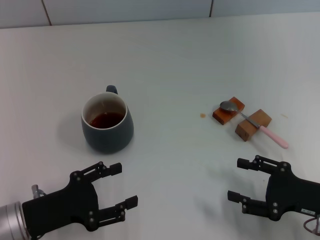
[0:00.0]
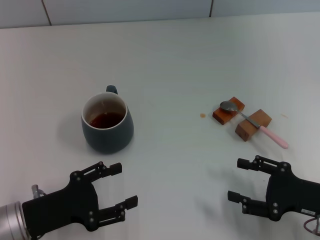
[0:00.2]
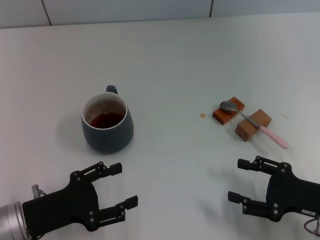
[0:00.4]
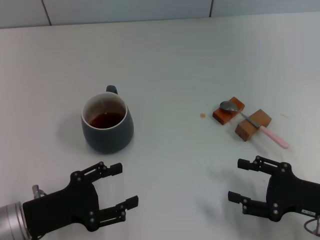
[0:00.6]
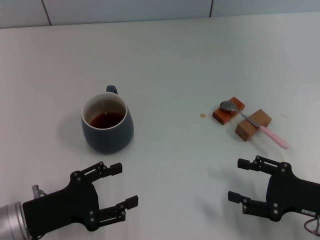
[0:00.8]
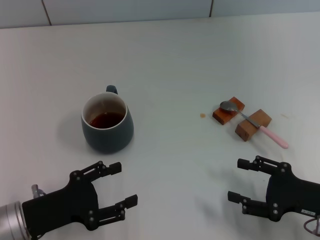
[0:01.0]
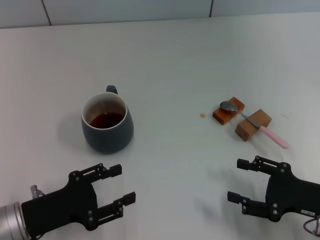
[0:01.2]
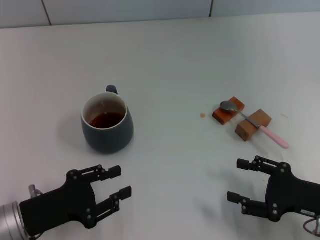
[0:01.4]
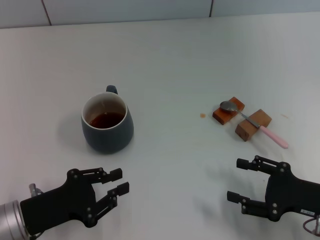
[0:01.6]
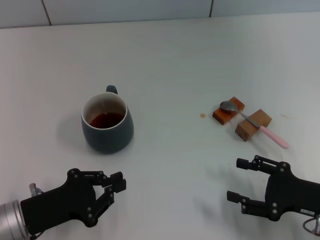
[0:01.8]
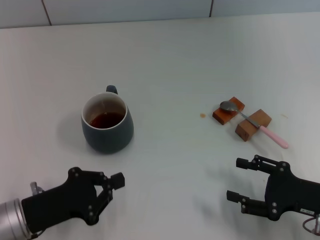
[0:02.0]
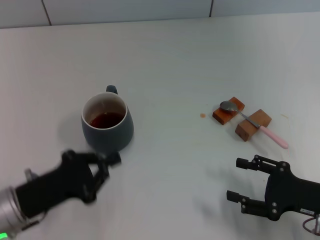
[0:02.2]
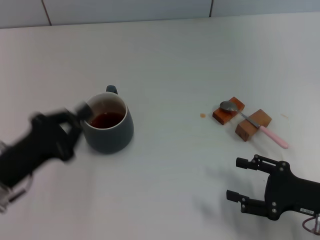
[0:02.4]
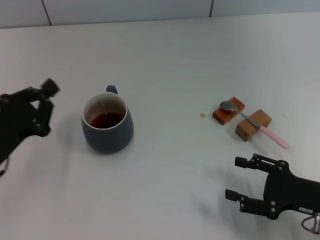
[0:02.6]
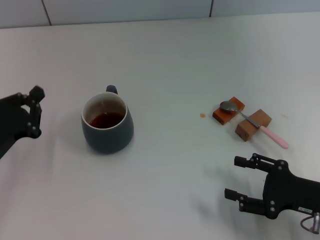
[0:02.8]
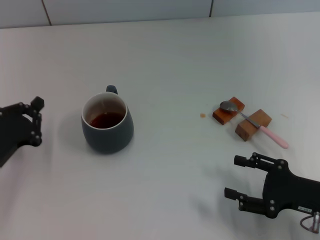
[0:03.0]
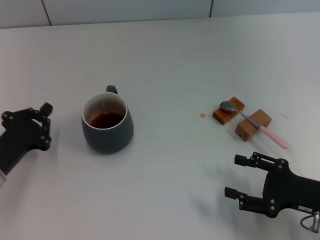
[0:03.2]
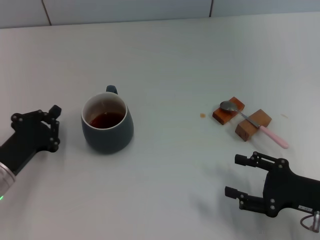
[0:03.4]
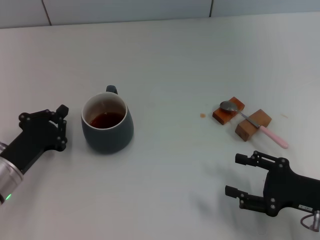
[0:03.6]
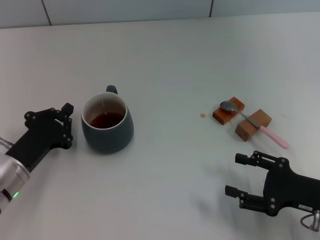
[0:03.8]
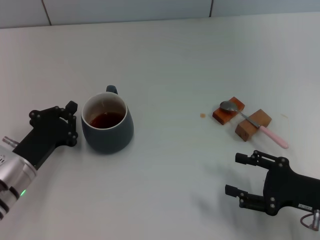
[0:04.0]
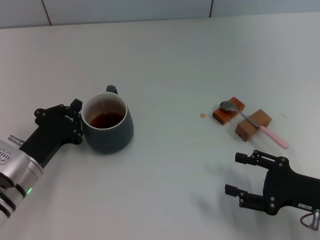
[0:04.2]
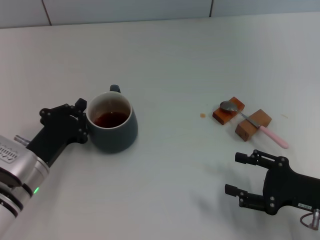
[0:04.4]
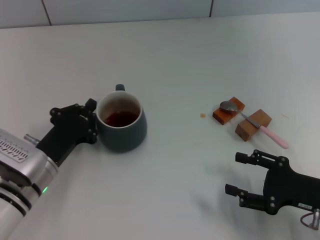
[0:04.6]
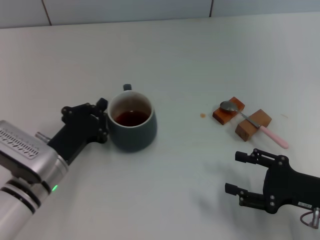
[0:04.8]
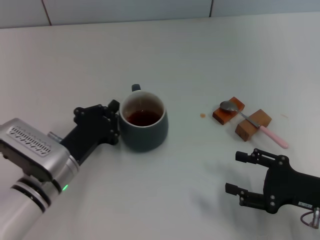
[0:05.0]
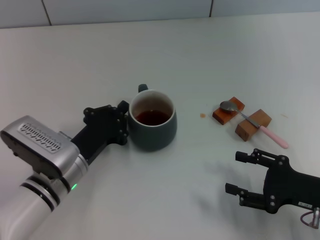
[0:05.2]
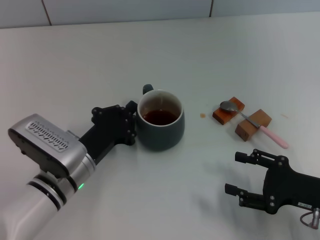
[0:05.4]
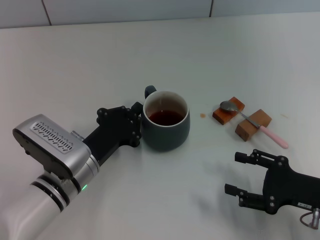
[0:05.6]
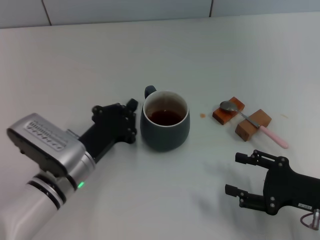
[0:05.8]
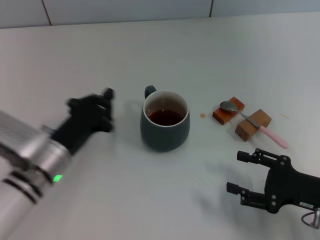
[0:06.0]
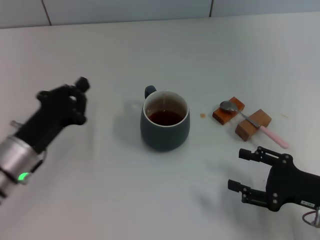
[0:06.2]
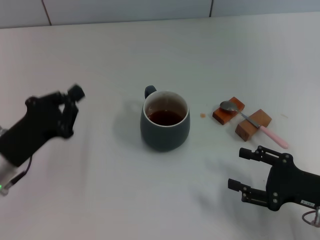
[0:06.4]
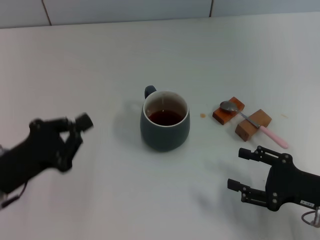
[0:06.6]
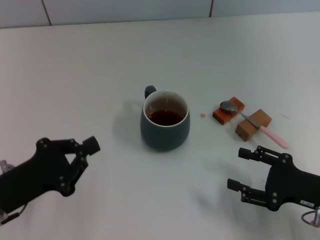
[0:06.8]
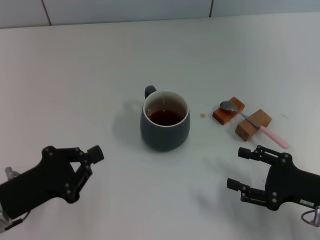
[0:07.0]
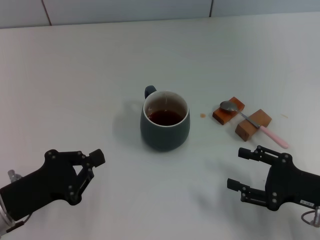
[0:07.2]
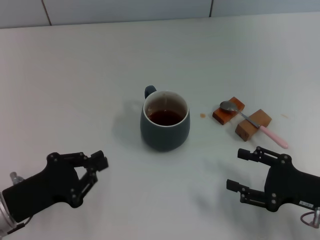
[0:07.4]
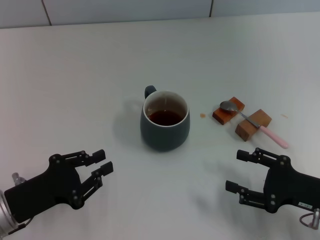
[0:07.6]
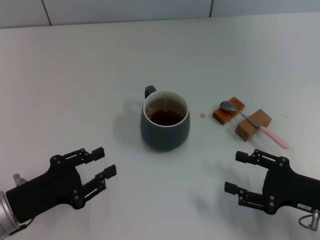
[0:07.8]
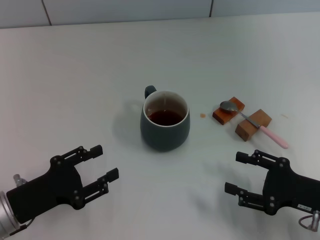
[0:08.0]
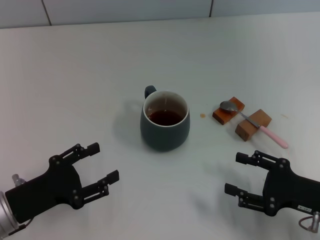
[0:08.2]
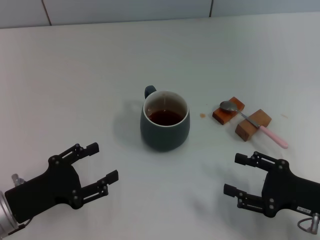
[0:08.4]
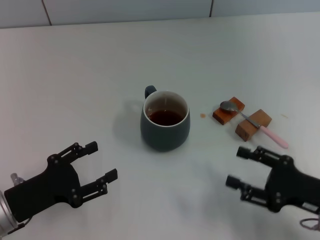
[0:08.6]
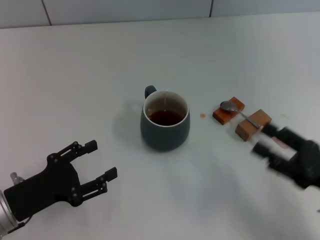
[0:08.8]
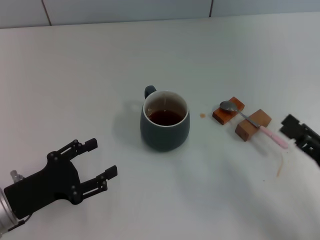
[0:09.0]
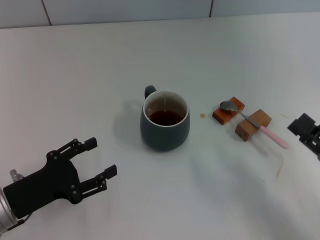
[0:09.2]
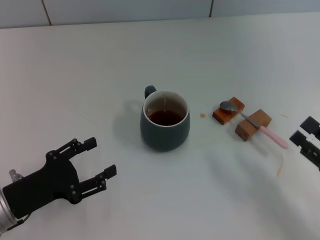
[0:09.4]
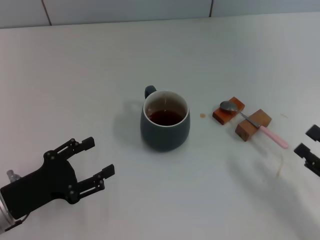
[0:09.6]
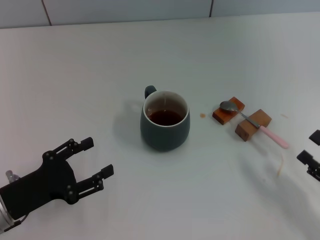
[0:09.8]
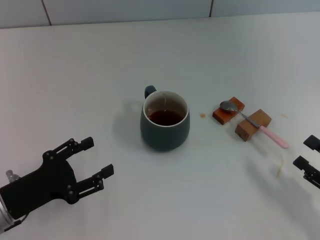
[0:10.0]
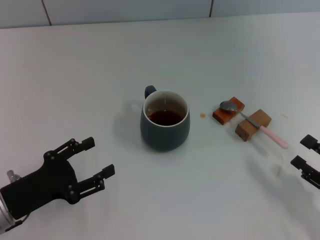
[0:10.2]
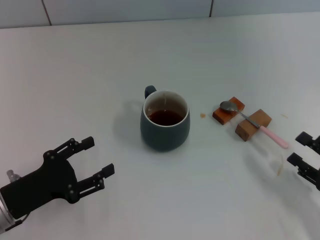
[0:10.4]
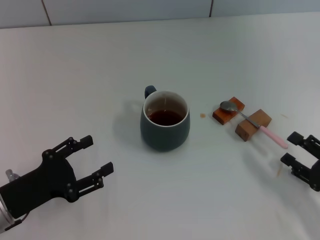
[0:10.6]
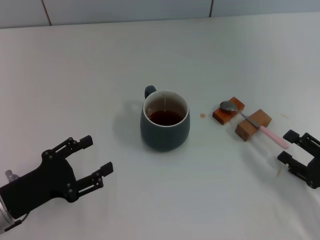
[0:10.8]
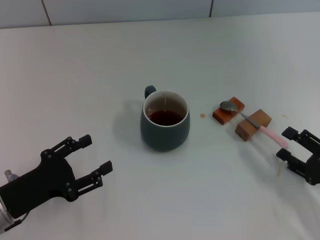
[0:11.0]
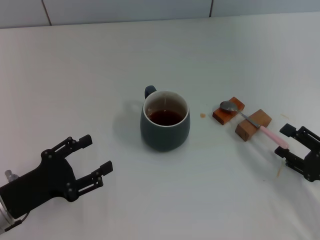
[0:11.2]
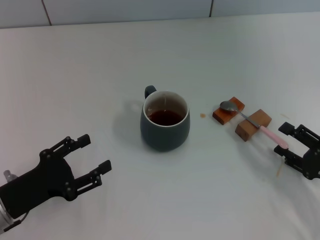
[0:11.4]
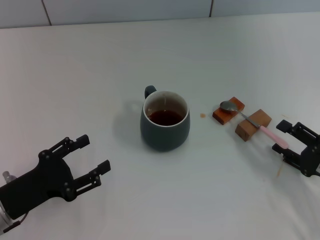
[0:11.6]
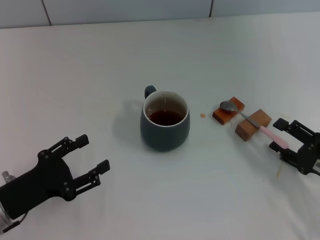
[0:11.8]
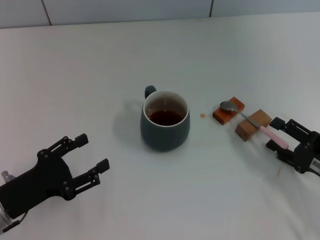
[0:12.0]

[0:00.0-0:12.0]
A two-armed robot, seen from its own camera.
Task of the whole recording: Move the grey cup to the center, lift the pink spoon, stir it three times in the cup, and put the spoon into the cup.
Step, 0:00.0 to 0:05.8: Move the cup with coffee to the center of view with the left gripper.
0:00.0 to 0:01.6: The left gripper closes.
0:01.6 to 0:03.0: The left gripper shifts by about 5 cm, and closes up.
0:03.0 to 0:04.4: The left gripper heads to the right, covering approximately 5 cm.
0:06.0 to 0:07.6: The left gripper moves to the left and backward, roughly 10 cm.
0:07.6 to 0:09.0: The left gripper opens.
0:10.4 to 0:12.0: The right gripper moves some 5 cm.

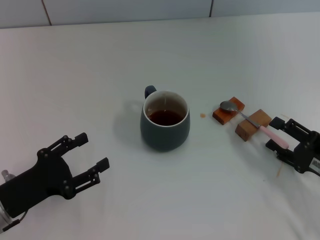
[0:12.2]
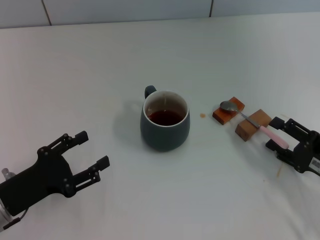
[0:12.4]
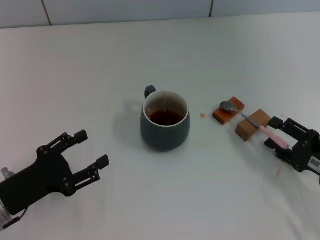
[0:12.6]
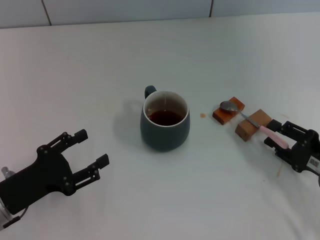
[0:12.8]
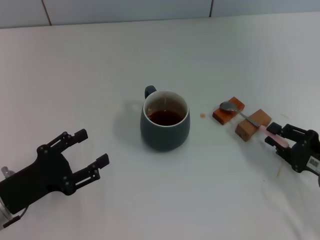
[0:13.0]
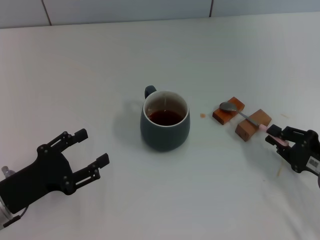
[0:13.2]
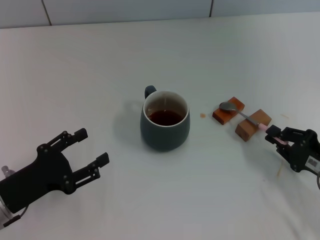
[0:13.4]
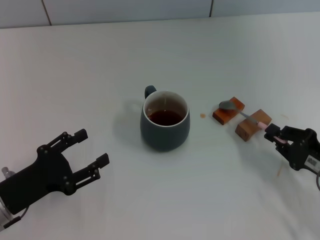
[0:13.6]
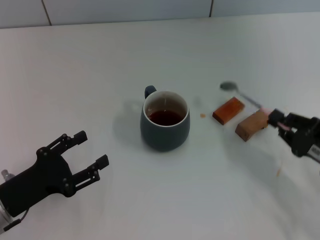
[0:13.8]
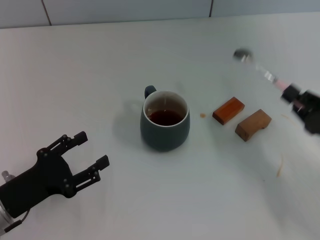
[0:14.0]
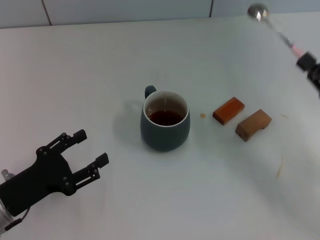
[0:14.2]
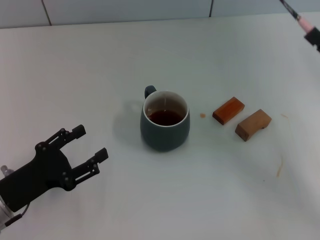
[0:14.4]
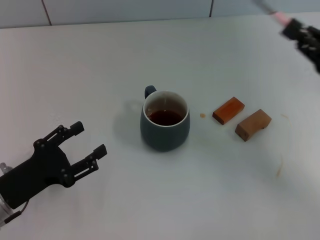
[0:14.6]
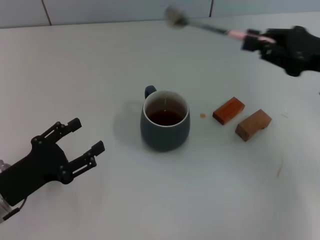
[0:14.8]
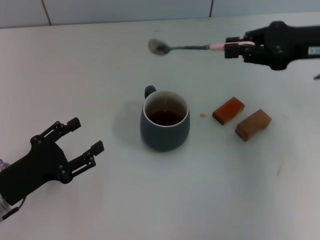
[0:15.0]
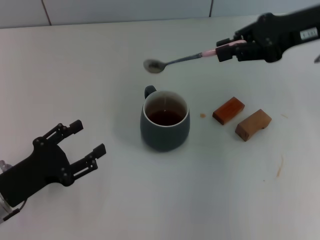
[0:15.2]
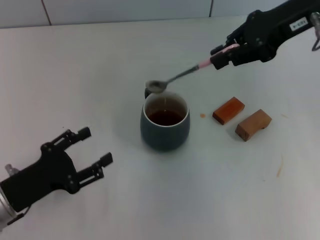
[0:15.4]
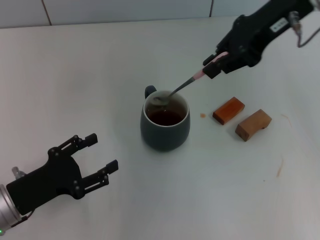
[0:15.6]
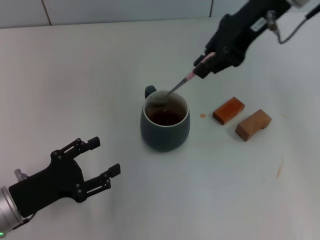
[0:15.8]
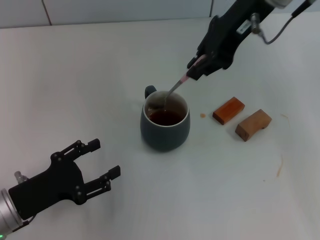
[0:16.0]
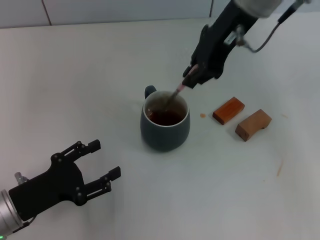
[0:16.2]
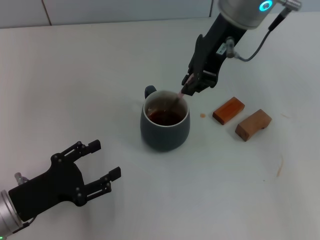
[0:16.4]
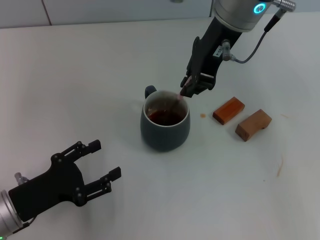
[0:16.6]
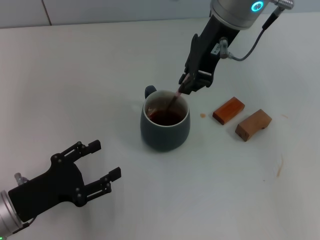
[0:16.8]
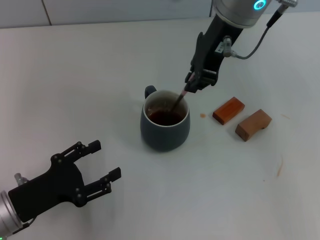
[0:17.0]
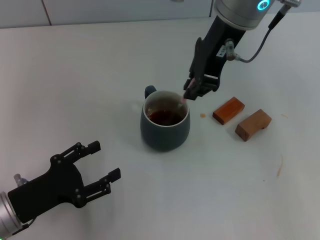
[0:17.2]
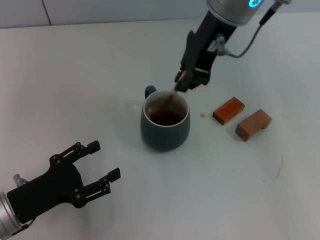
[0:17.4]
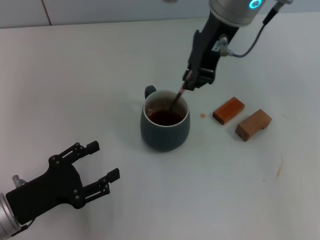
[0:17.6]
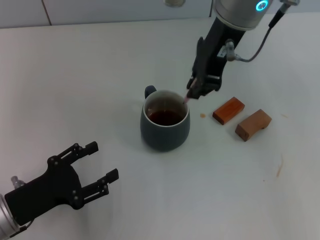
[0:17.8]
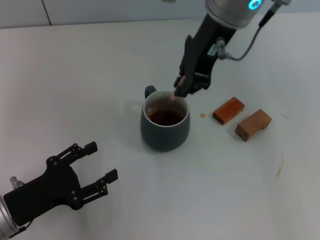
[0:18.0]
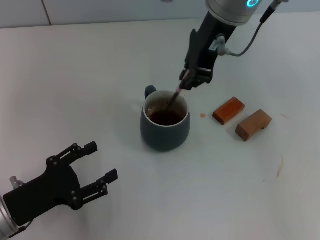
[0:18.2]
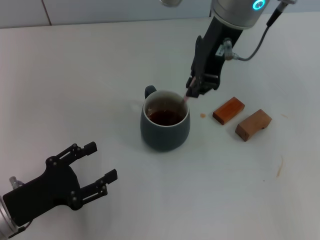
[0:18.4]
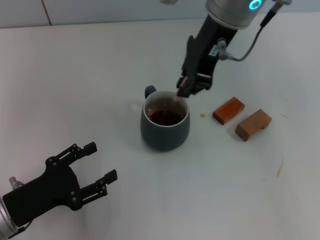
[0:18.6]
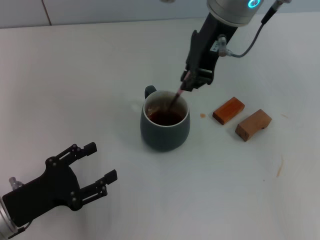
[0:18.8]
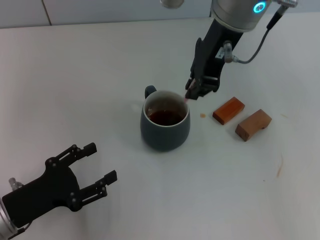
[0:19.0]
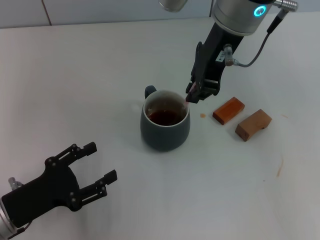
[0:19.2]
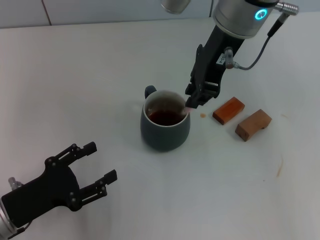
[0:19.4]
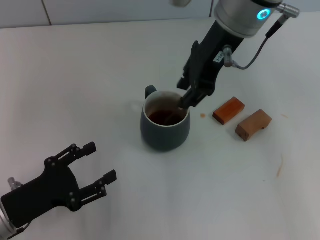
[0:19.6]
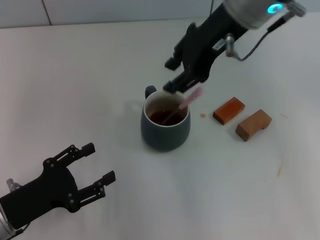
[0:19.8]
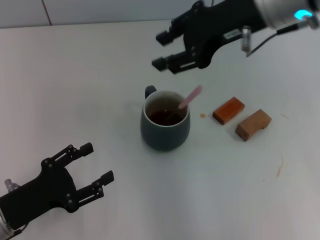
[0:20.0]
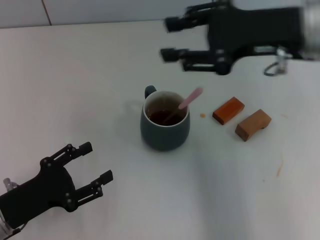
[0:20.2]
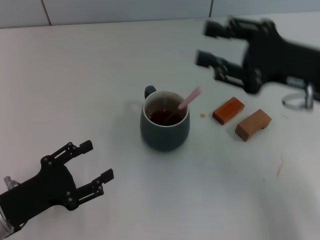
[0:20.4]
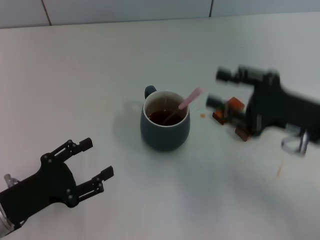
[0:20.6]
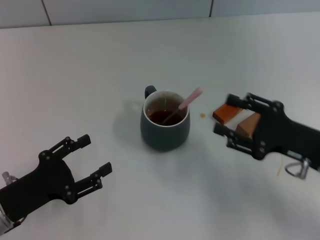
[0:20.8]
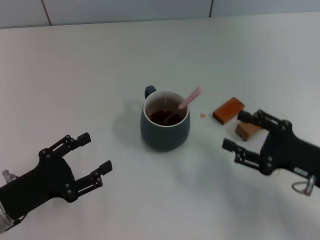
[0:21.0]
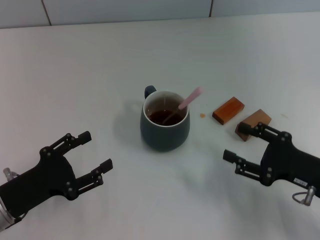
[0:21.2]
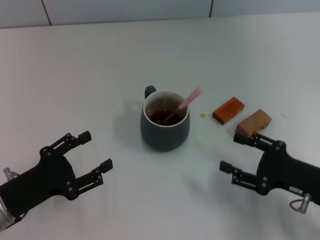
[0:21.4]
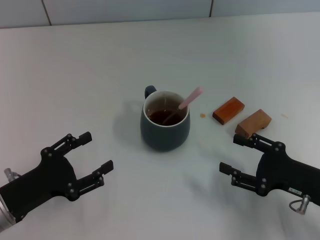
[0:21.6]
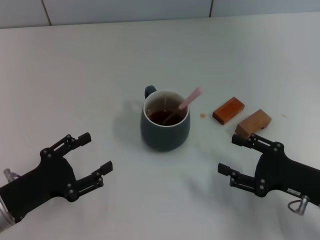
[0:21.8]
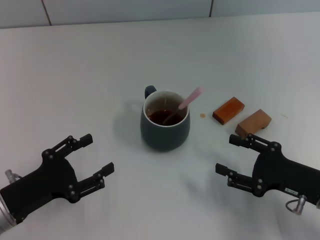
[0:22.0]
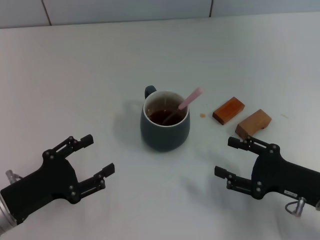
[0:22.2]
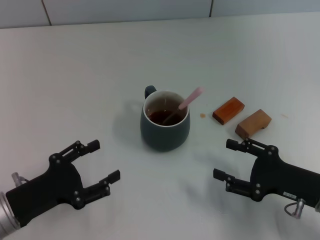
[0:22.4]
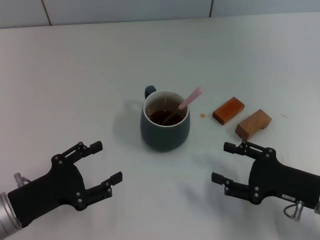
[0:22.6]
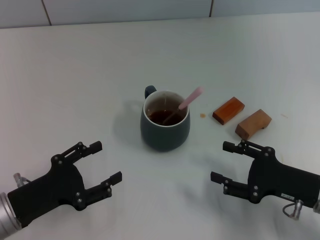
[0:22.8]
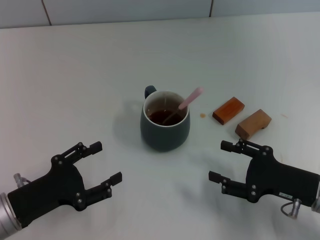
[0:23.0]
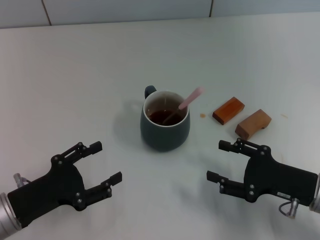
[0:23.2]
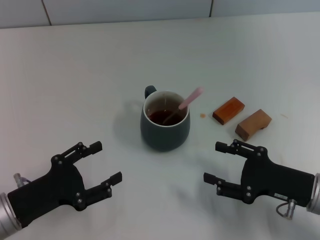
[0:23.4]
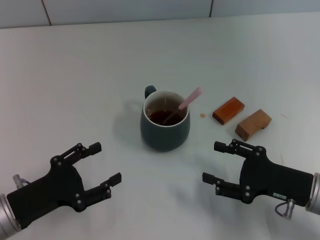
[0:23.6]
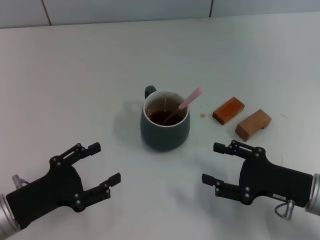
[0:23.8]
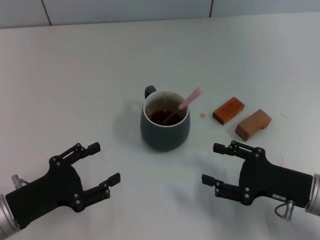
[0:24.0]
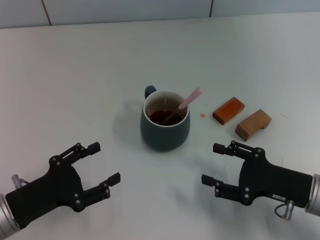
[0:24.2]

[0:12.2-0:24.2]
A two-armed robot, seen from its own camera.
Task of the whole recording: Move the grey cup to the center, lift the pink spoon, stir it three times in the cup, and put the spoon into the cup.
Step, 0:14.2 to 0:20.0: Stir the coffee in the cup with the right gripper.
0:12.2 to 0:13.8: The right gripper closes its fingers.
0:13.8 to 0:15.2: The right gripper is displaced upward and forward by roughly 25 cm.
0:15.2 to 0:16.6: The right gripper moves to the left, approximately 15 cm.
0:16.6 to 0:18.2: There are only small adjustments of the grippers.
0:18.2 to 0:19.8: The right gripper opens.
0:19.8 to 0:21.2: The right gripper is displaced downward, backward and to the right by about 35 cm, and opens up.
0:21.2 to 0:22.6: The grippers stay close to where they were, moving slightly.
0:22.6 to 0:24.2: Both grippers stay about where they are.
